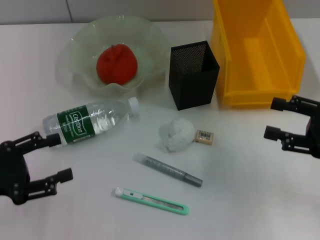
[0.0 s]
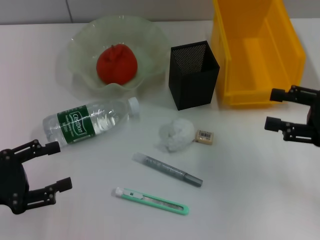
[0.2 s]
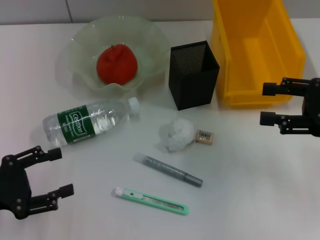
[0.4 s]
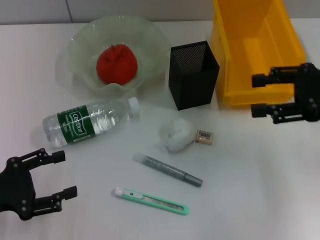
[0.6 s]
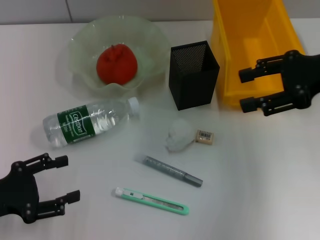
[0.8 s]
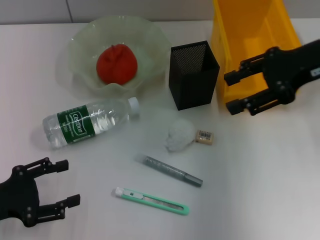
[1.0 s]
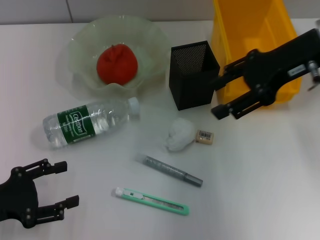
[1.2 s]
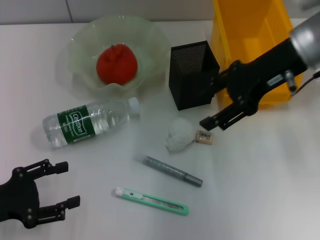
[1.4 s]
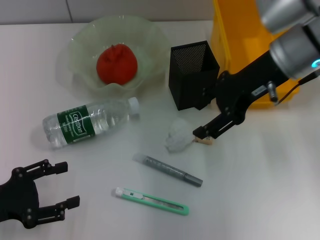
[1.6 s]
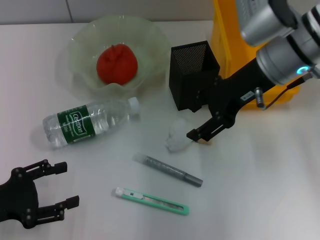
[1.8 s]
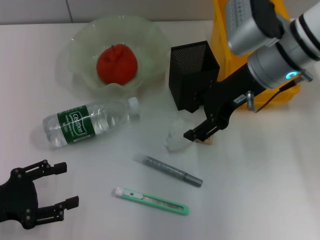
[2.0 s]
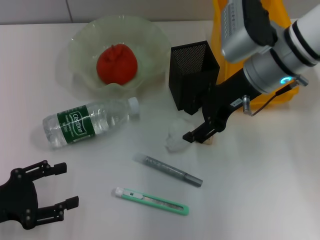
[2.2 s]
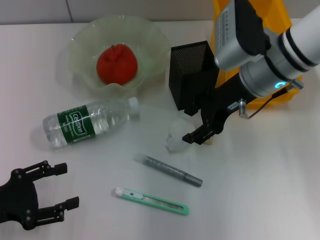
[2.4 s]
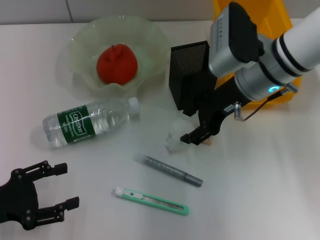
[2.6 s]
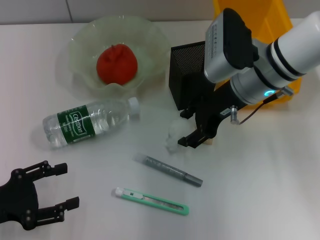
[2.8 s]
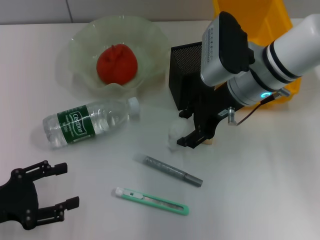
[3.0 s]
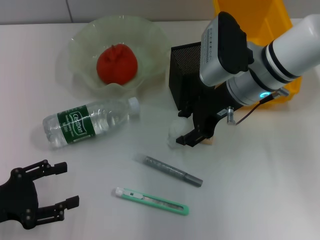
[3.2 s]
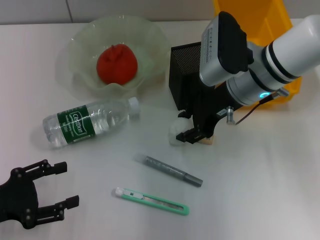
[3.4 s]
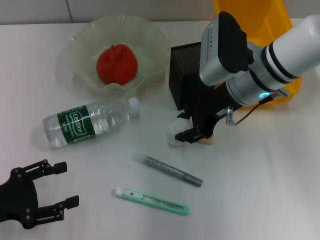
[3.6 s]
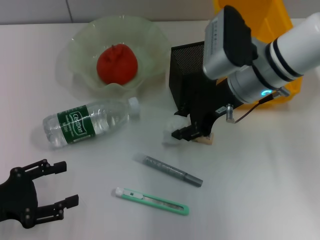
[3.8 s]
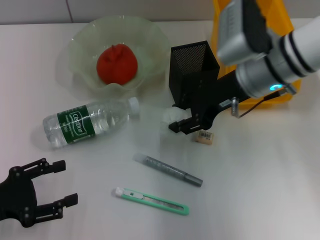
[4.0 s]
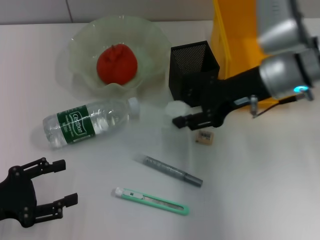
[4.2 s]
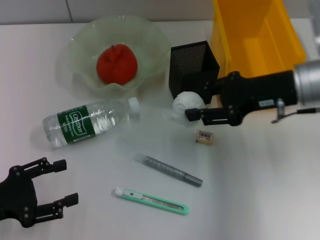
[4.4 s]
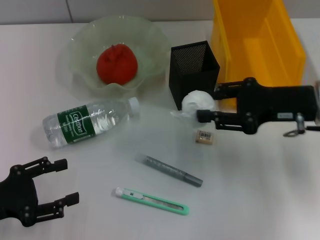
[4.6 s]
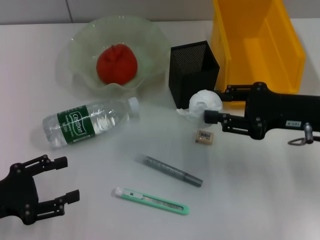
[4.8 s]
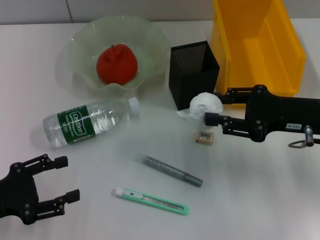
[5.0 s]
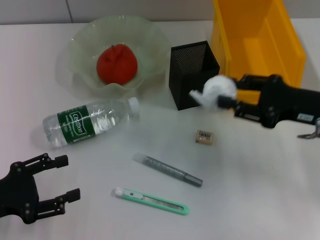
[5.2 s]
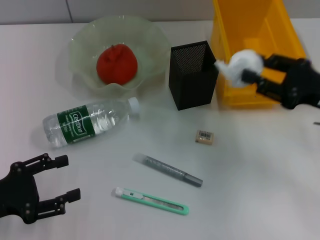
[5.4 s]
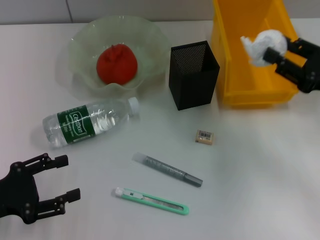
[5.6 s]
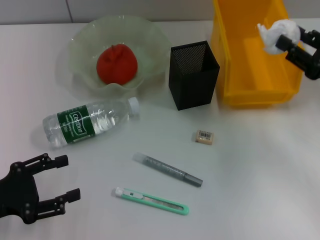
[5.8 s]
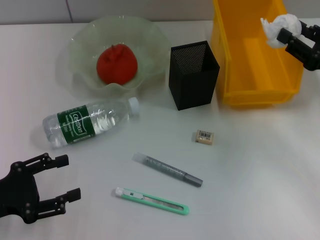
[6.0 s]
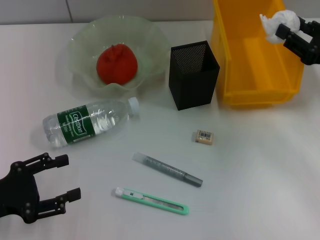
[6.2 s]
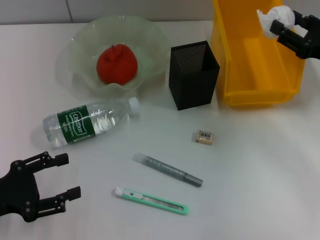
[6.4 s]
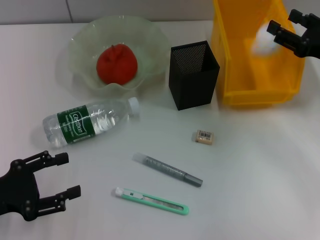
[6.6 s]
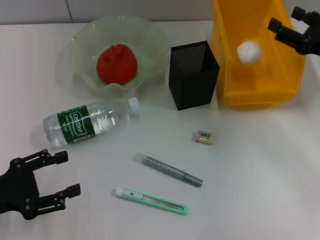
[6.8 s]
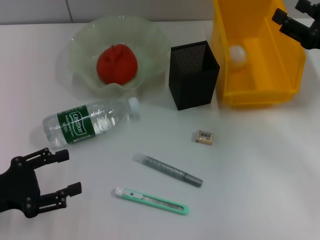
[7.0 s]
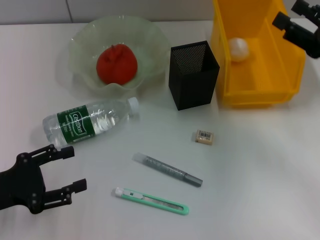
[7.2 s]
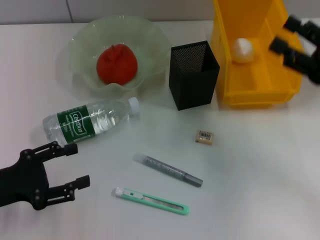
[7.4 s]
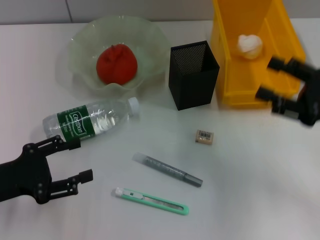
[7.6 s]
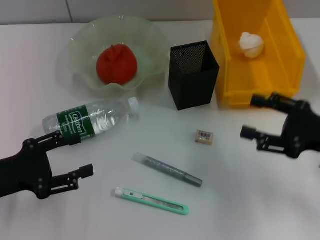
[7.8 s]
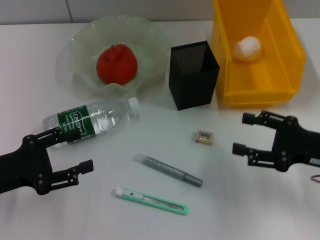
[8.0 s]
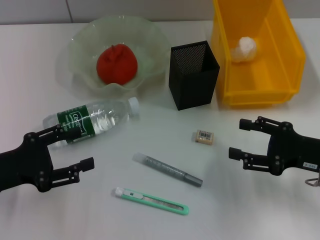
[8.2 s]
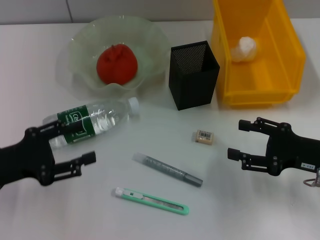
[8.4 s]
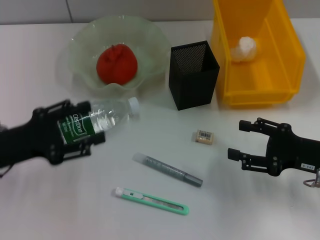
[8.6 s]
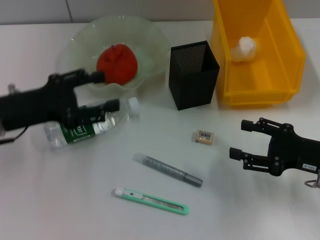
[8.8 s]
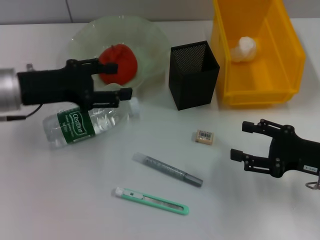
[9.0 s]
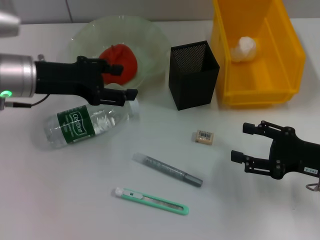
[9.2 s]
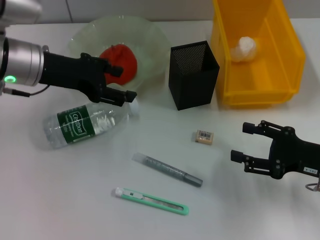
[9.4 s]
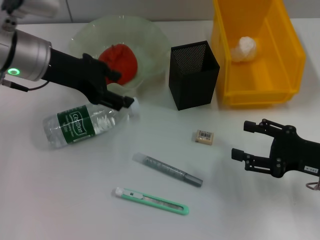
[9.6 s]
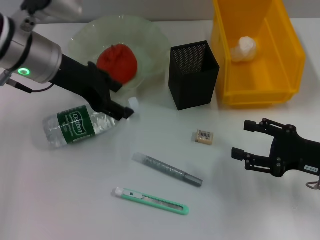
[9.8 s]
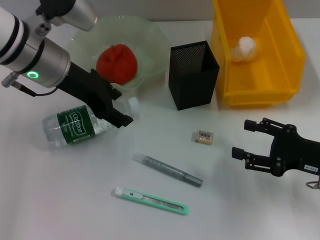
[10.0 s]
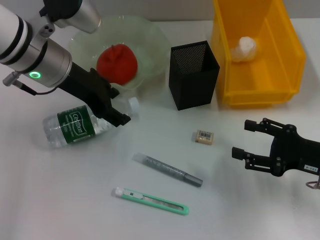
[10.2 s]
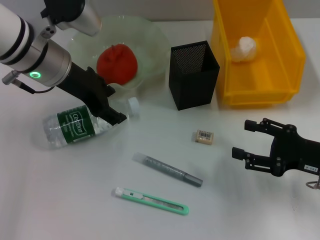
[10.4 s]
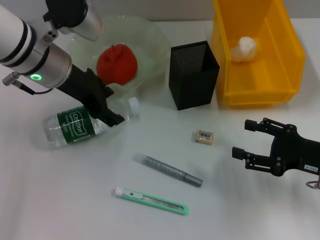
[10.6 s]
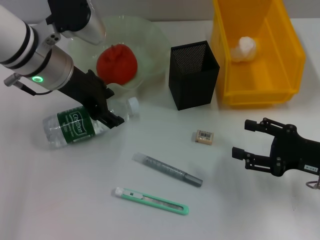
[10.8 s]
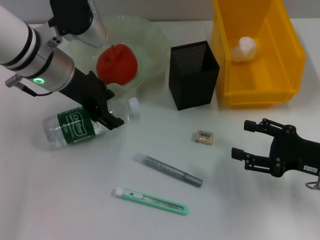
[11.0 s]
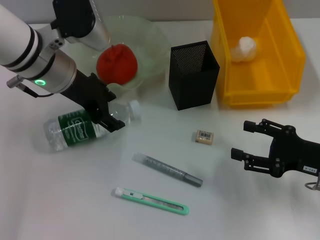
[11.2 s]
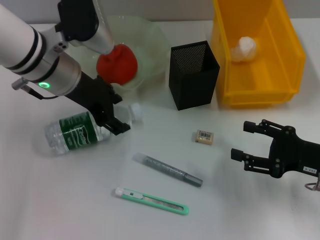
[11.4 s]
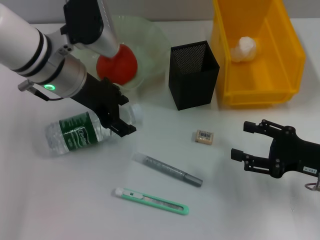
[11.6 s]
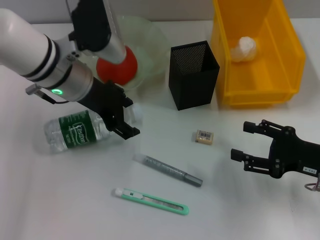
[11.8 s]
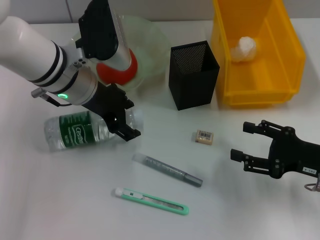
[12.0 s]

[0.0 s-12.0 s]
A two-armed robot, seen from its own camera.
Step, 0.0 to 3.4 s: Grab the paper ball with the right hand.
Step, 3.6 to 6.8 s: Place the paper ball into the trash can with the right hand.
0.0 to 1.6 s: The right gripper moves to the left, forward and upward, some 20 cm.
1.6 to 3.0 s: The right gripper travels downward by approximately 5 cm.
3.0 to 4.4 s: The right gripper shifts approximately 10 cm to the right.
4.4 to 6.0 s: The right gripper heads to the right, covering some 10 cm.
6.0 to 7.6 s: The right gripper goes some 5 cm backward, and opens.
7.6 to 9.0 s: The left gripper moves forward, upward and to the right, approximately 15 cm. The right gripper shifts some 5 cm downward.
9.0 to 10.4 s: The left gripper moves to the right, some 10 cm.
10.4 to 12.0 s: There are only small adjustments of the grippers.

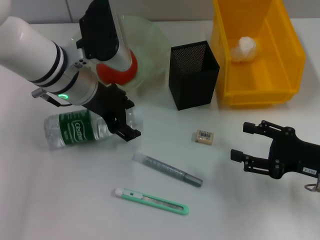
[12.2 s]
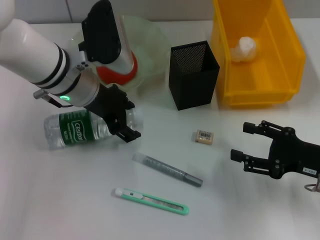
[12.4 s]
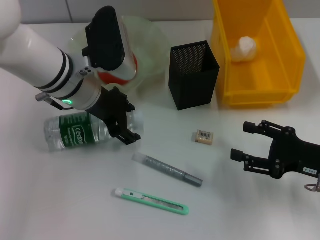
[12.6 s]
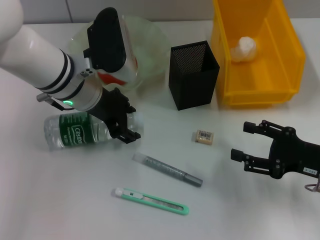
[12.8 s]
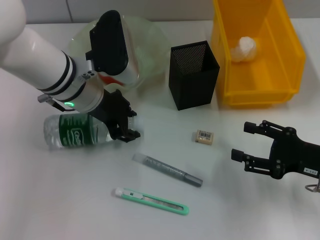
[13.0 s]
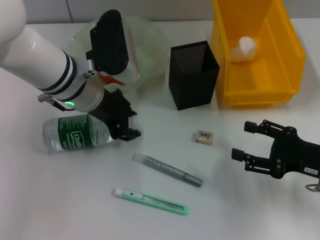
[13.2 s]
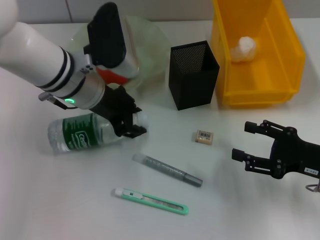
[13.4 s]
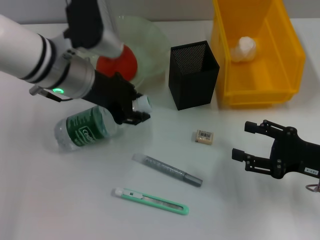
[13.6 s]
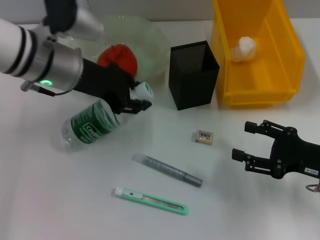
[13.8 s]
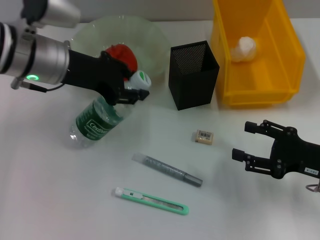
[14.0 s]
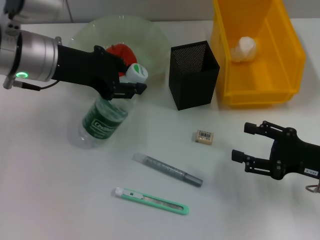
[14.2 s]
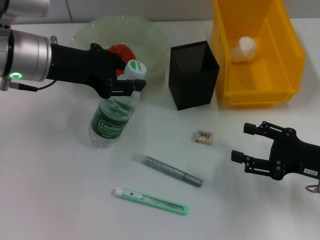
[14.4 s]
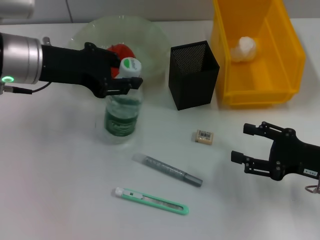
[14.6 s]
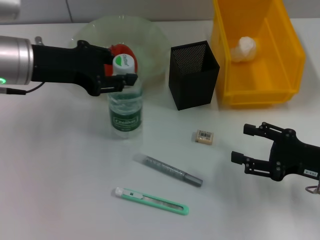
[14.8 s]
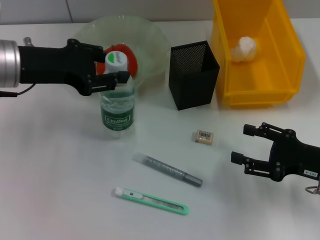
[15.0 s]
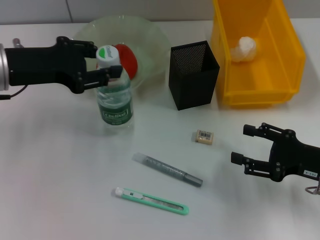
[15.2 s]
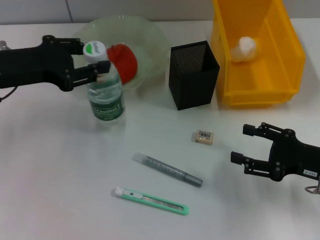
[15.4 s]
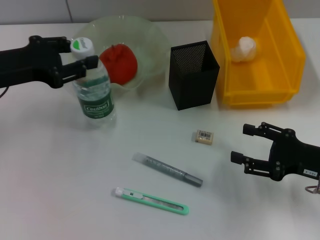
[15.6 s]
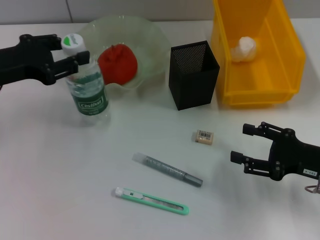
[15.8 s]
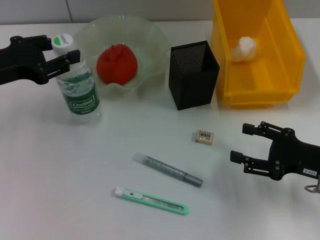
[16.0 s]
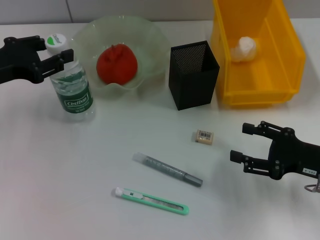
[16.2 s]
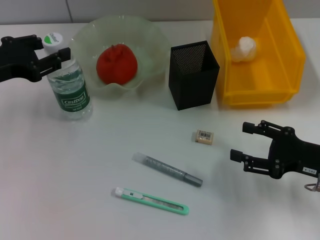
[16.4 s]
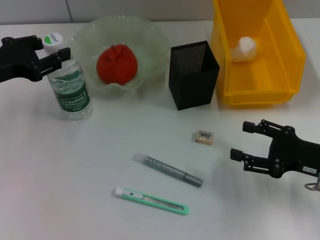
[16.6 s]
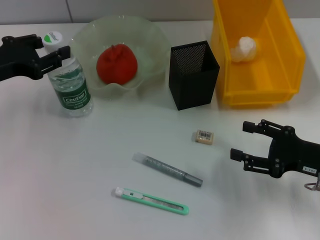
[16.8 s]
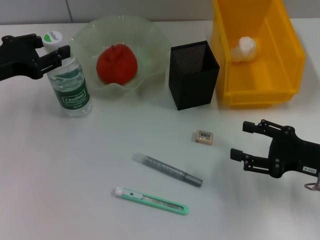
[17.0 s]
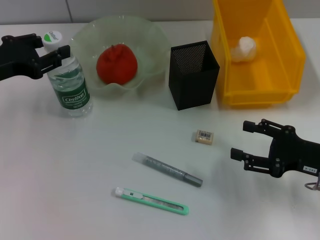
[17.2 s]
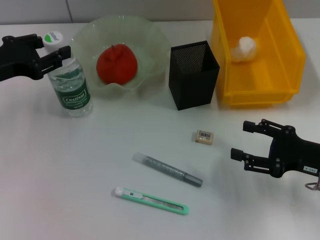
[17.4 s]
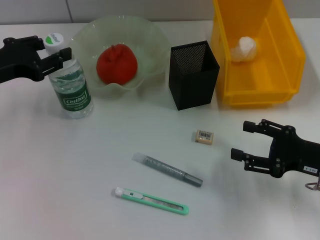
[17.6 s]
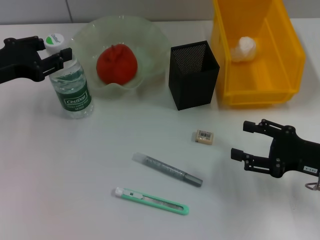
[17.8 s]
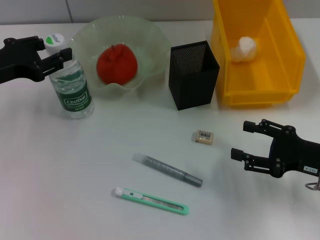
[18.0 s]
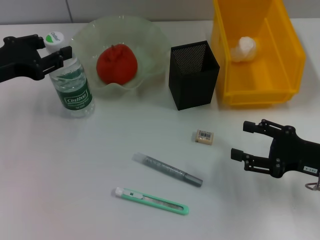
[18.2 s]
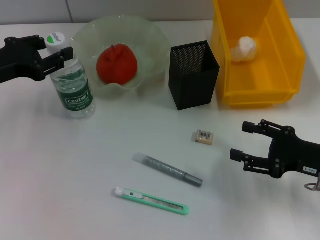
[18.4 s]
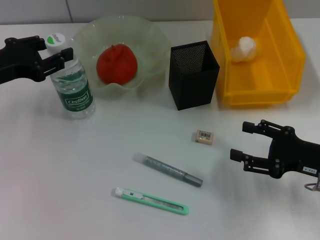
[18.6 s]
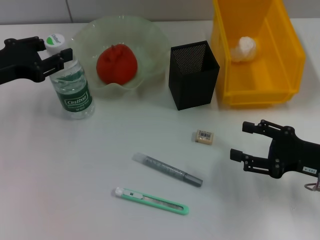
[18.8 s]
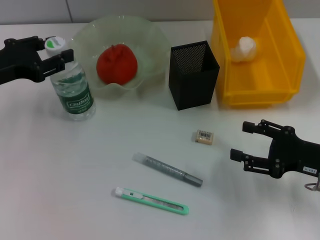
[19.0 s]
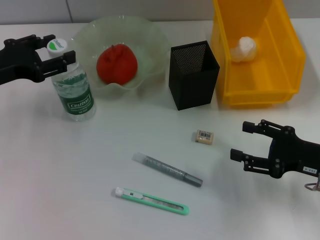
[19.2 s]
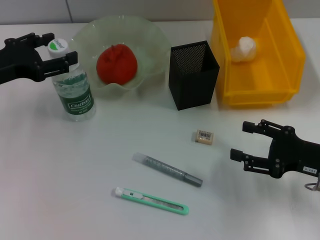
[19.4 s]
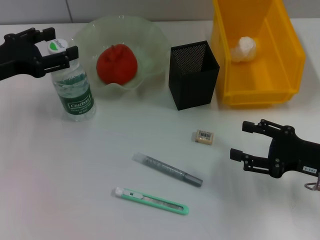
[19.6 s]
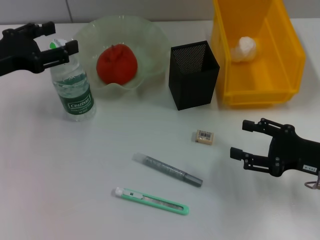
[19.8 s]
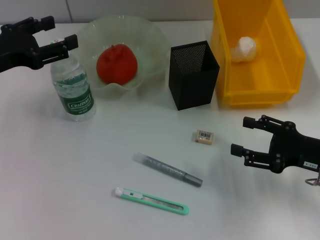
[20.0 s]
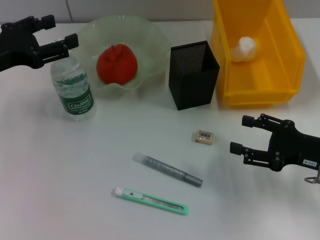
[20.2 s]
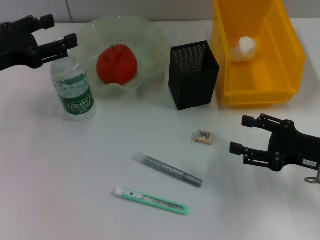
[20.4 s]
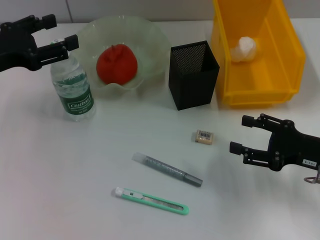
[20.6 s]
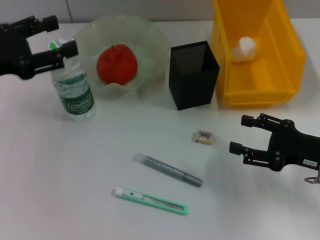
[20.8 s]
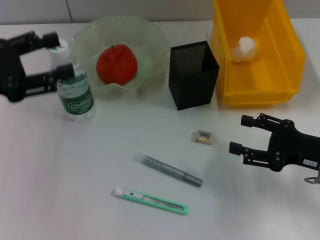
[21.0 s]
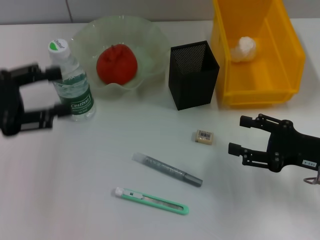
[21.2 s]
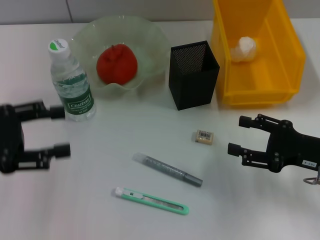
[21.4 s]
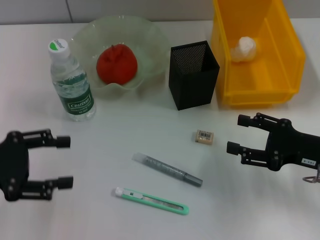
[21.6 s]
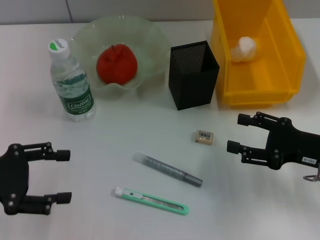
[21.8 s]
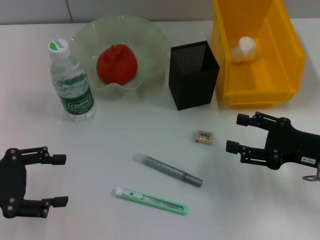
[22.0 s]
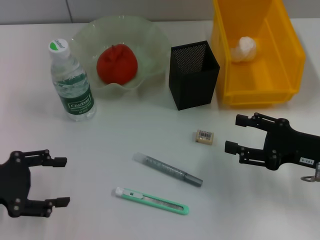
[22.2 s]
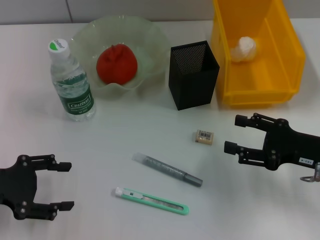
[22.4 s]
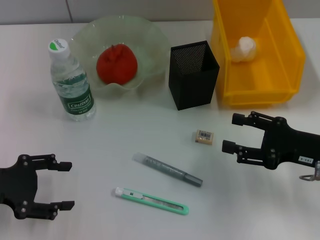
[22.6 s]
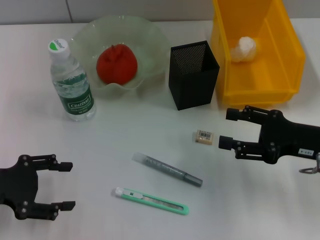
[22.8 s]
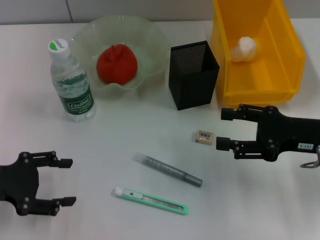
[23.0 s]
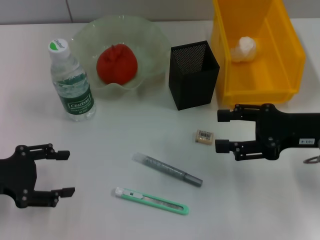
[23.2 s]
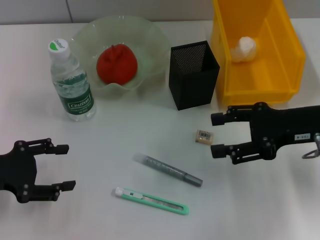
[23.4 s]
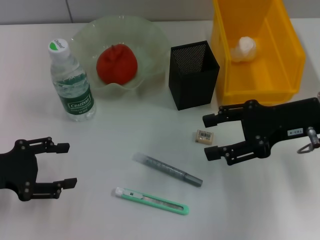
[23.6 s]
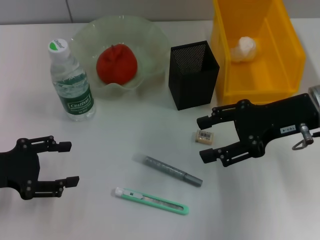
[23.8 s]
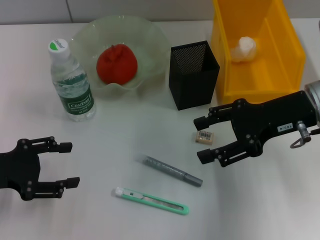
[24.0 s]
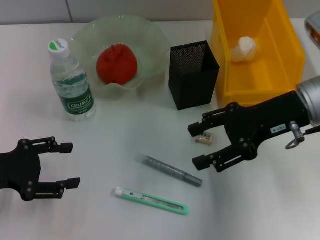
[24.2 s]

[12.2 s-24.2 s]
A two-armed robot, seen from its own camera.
Step, 13.2 to 19.4 s: Place the water bottle on the table with the left hand.
12.2 to 13.8 s: The left gripper closes up.
13.8 to 15.2 s: The left gripper moves to the left, about 10 cm.
15.2 to 16.6 s: The left gripper is displaced to the left by some 5 cm.
16.6 to 18.2 s: Neither gripper changes place.
18.2 to 19.8 s: The grippers make only small movements.
19.8 to 21.2 s: The left gripper travels backward by about 5 cm.
21.2 to 22.6 s: The left gripper travels downward by roughly 5 cm.
22.6 to 24.2 s: The right gripper is displaced upward, forward and to the left by about 15 cm.
